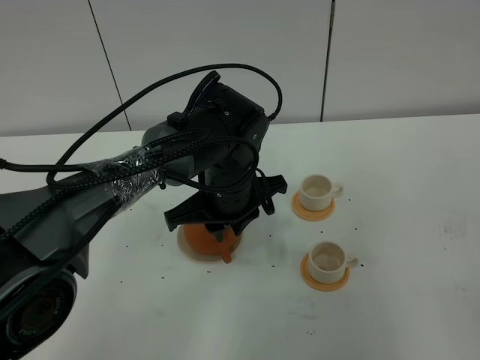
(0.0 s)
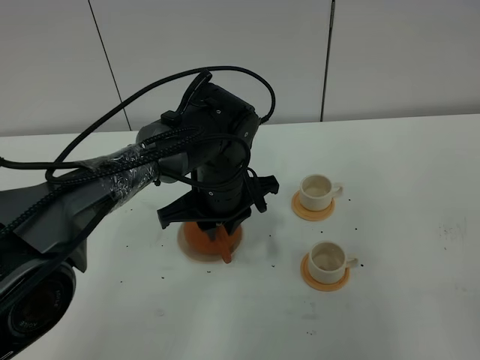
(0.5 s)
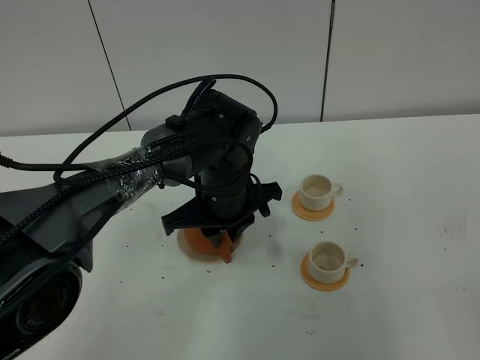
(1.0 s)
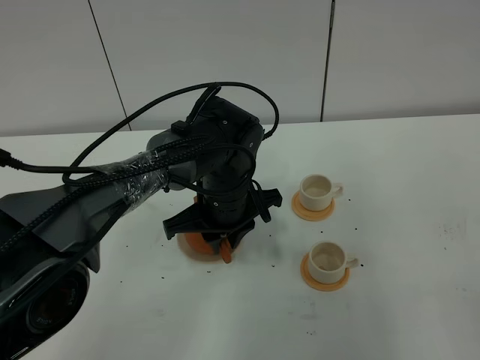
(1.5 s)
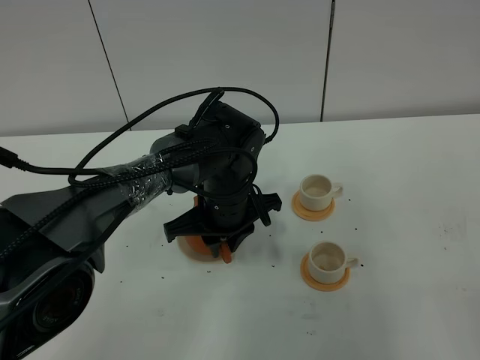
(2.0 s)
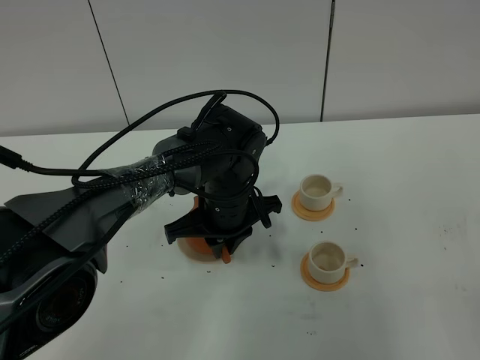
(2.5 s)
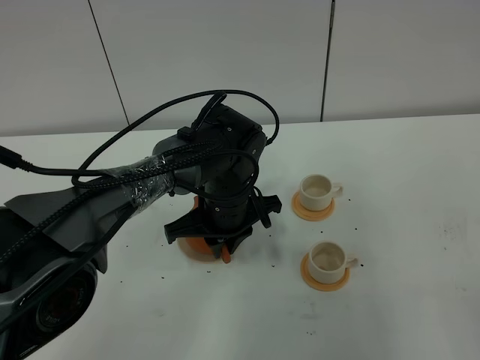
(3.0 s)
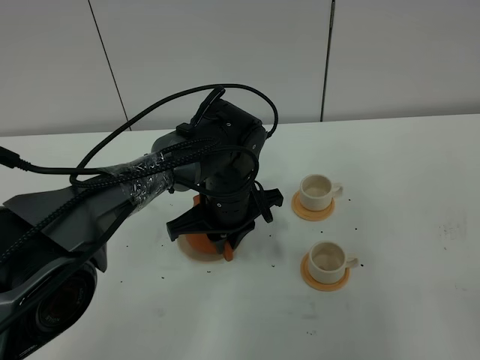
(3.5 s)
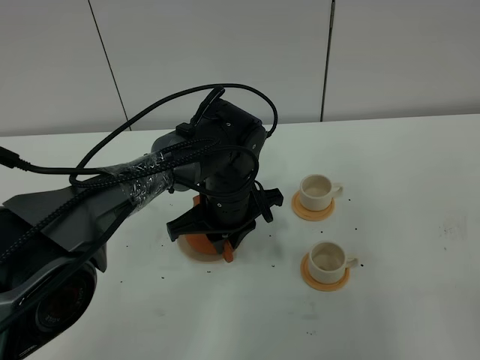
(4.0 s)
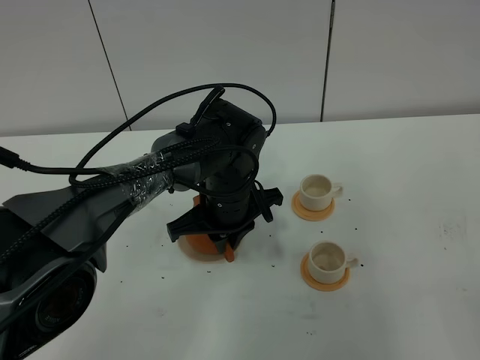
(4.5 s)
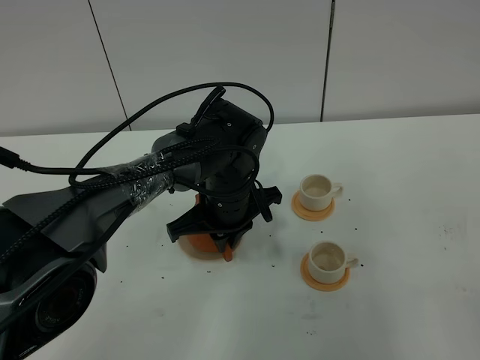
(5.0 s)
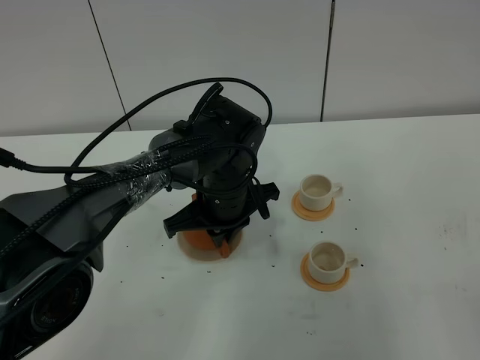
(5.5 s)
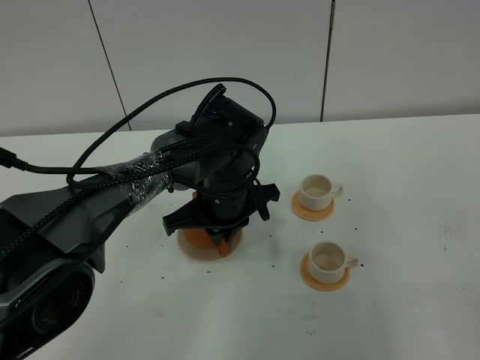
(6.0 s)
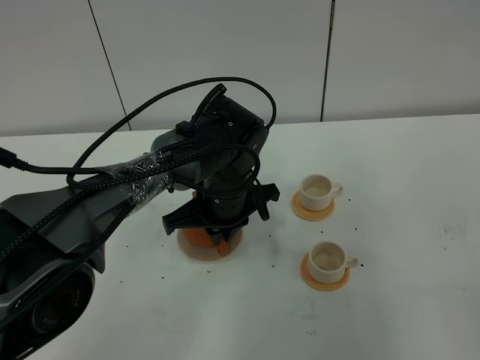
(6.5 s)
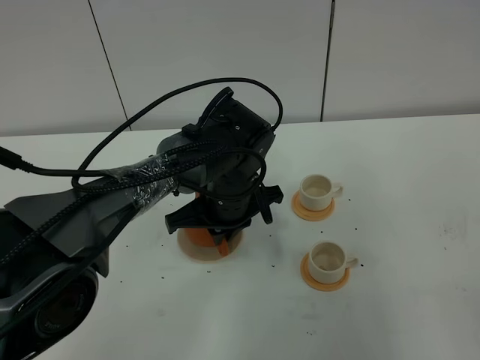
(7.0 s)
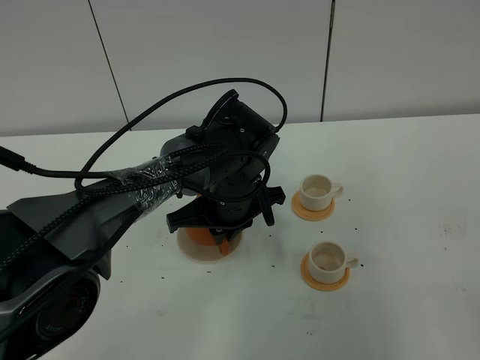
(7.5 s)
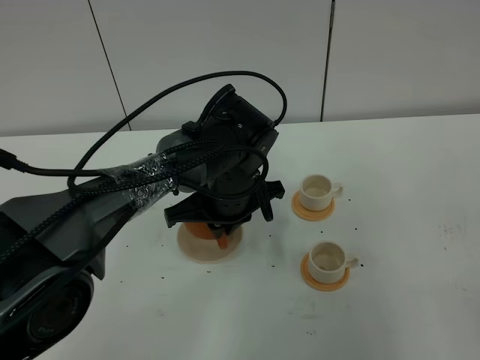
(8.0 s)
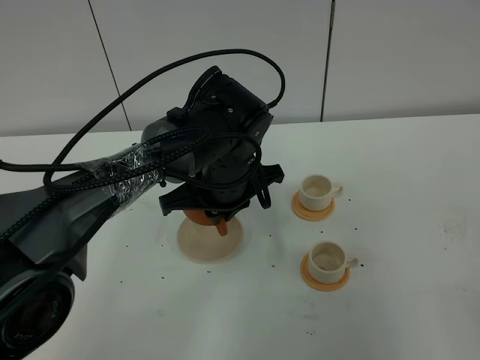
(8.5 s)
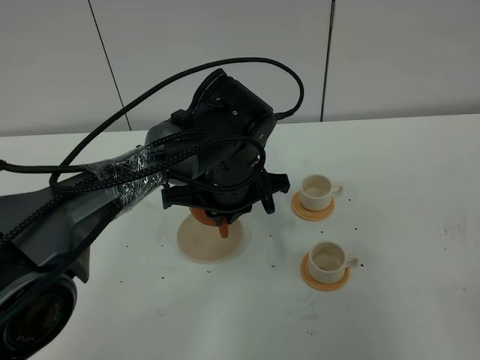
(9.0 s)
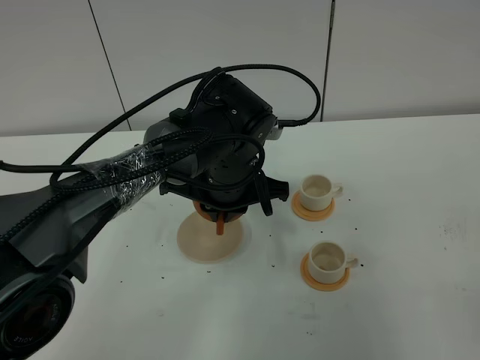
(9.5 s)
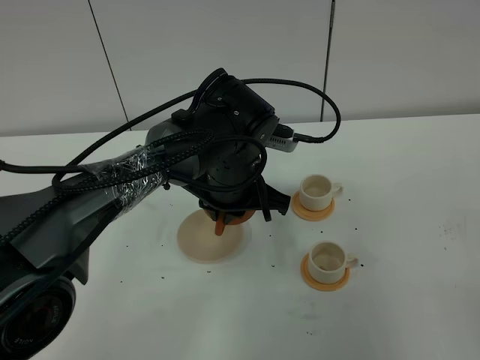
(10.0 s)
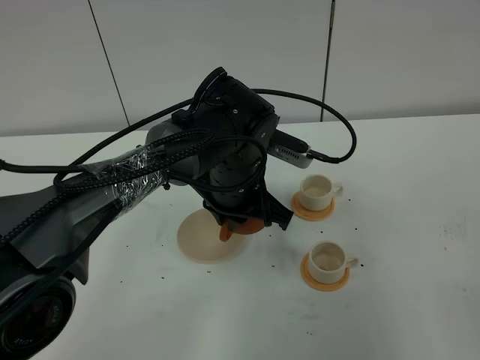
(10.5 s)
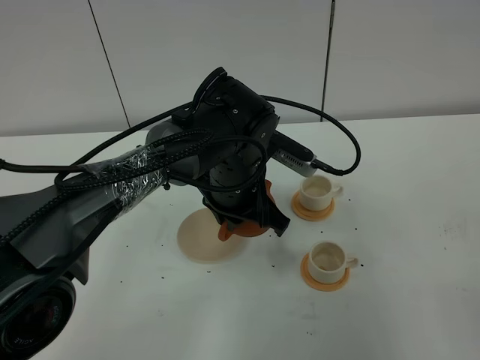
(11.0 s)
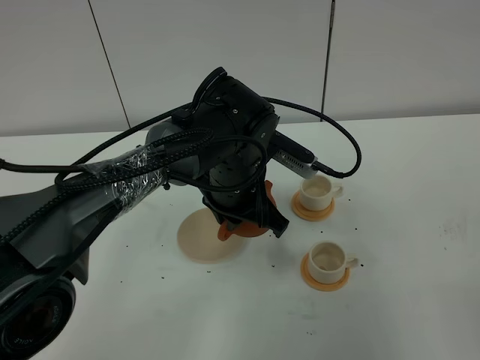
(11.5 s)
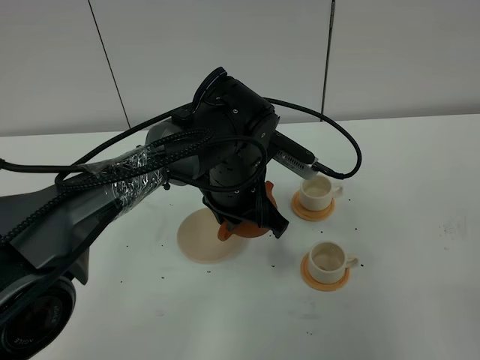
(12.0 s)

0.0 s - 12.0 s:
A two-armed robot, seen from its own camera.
Task of the whole recording: grasp the brown teapot and pour the tea into the two white teacups one by one, put the brown teapot back in its original place.
Step, 0.0 s - 4.5 s: Grasp the teapot with left gripper.
0.0 s - 2.0 s: The grippers make only small movements.
2.0 s - 4.0 s: Neither gripper changes place.
4.0 s - 6.0 s: The left gripper closes its fingers.
6.0 s - 8.0 s: There are only small adjustments of the grippers.

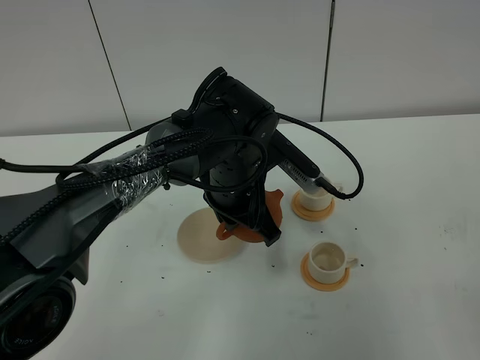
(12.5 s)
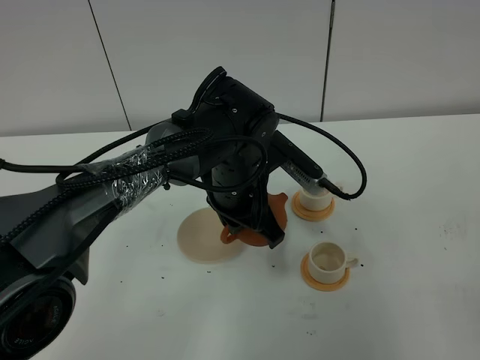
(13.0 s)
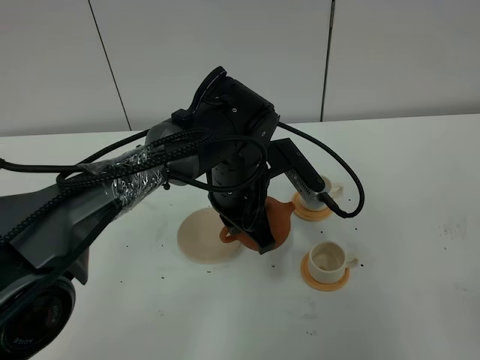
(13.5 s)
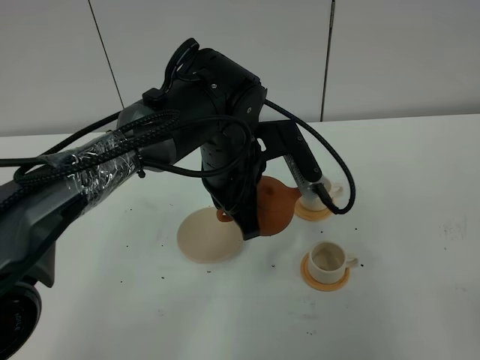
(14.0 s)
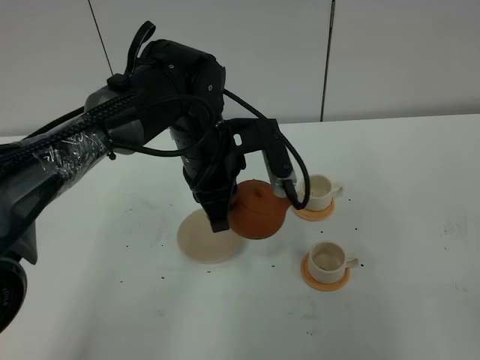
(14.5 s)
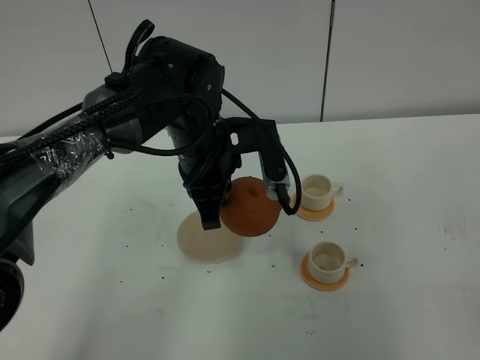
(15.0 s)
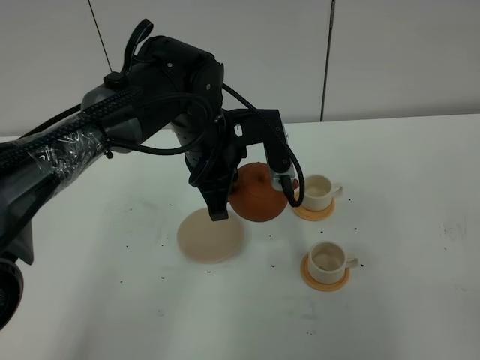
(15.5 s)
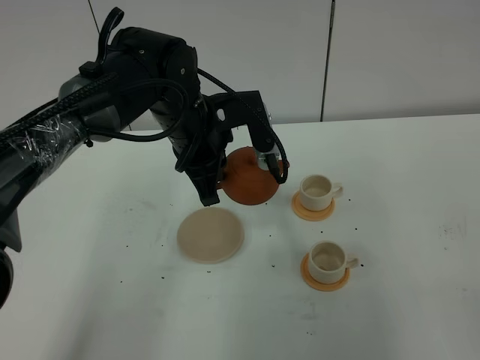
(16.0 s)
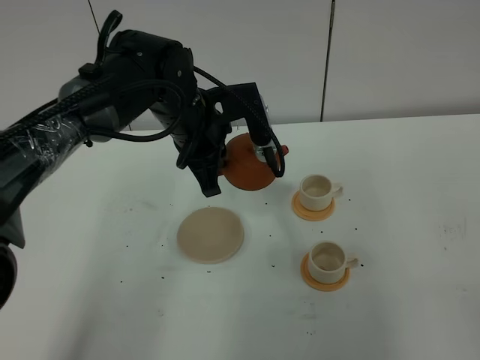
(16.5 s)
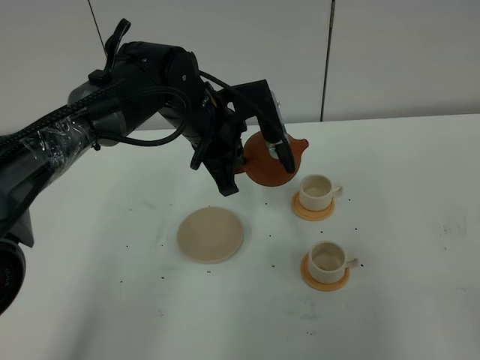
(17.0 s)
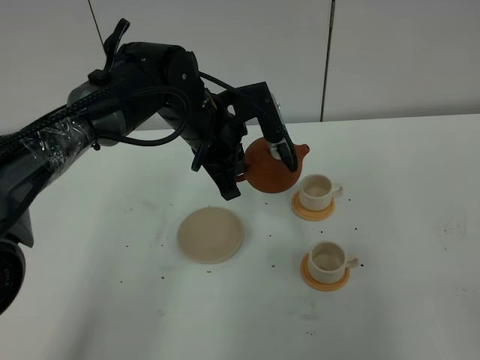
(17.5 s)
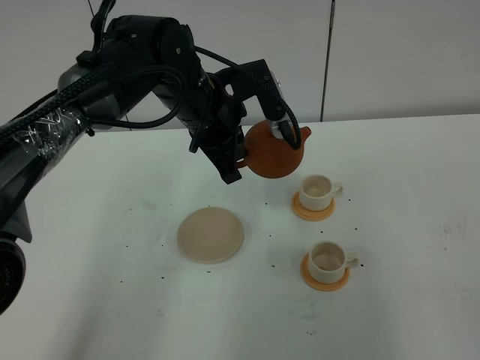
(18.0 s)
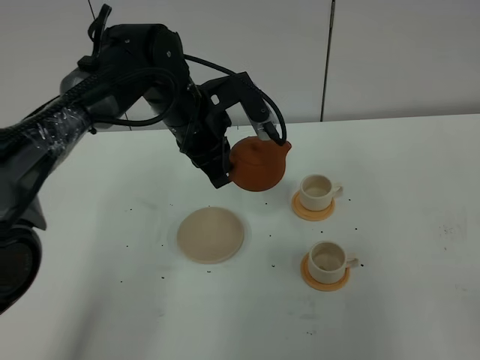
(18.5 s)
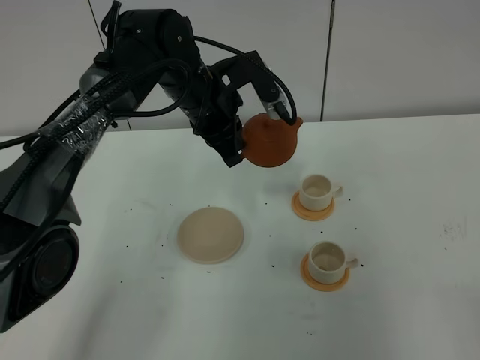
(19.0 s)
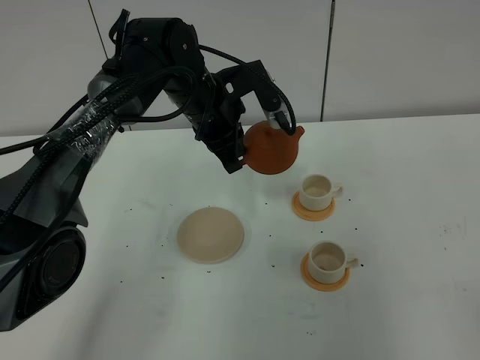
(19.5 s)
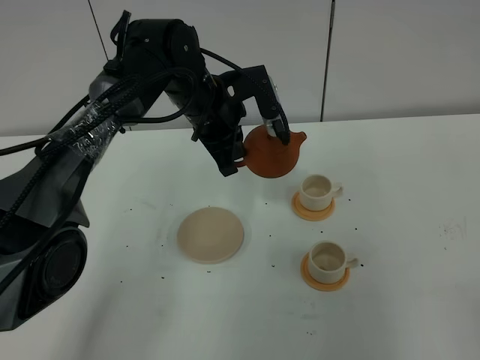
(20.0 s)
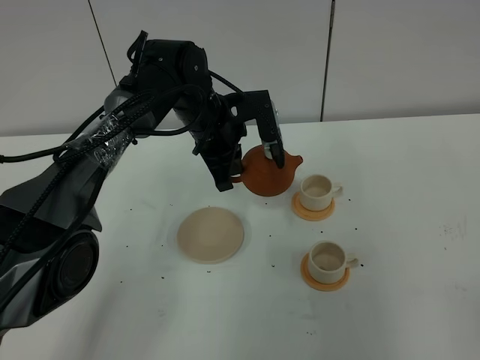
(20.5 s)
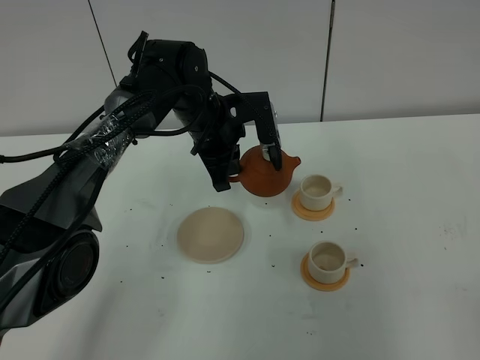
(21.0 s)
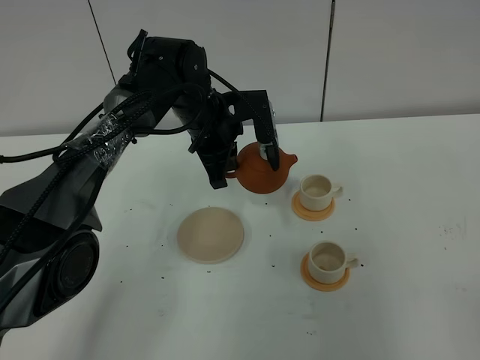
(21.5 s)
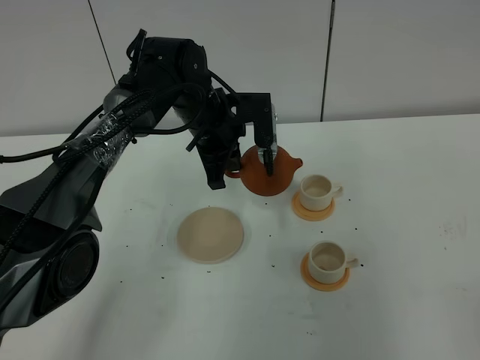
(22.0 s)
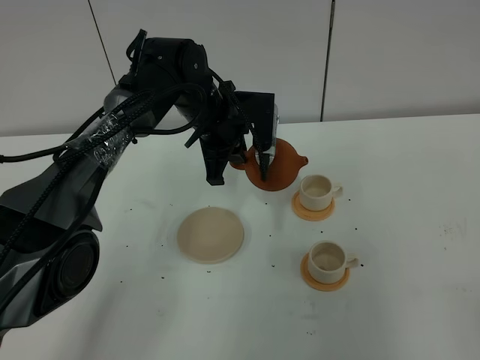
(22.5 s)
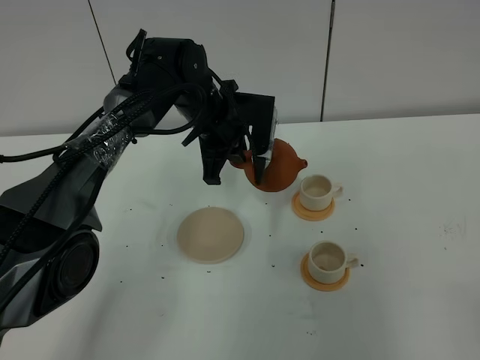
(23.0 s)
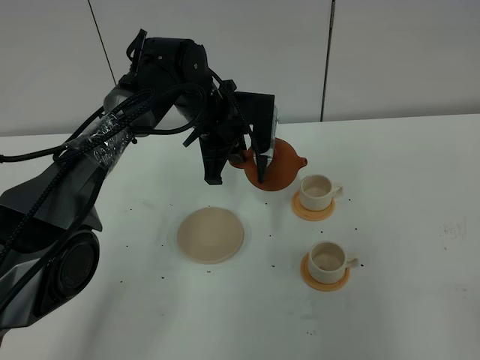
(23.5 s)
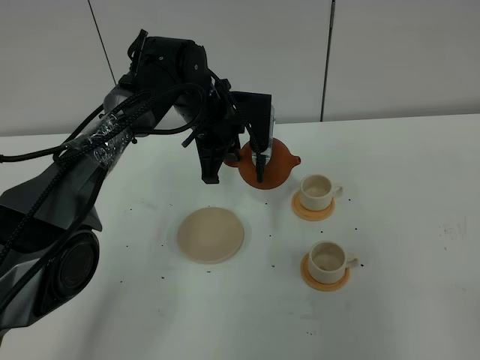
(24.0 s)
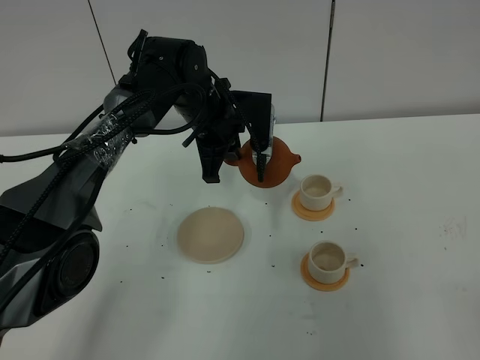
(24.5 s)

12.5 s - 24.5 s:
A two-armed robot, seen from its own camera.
Task of the whole recording: grasp the brown teapot and pour the tea into the two white teacups one by one, put the brown teapot back in its original place.
12.5 s - 14.5 s: The left gripper moves approximately 5 cm.
14.5 s - 16.5 s: The grippers make only small movements.
16.5 s - 18.5 s: The grippers stay close to where they were, moving slightly.
18.5 s - 20.5 s: The left gripper shifts by some 5 cm.
20.5 s - 22.5 s: The grippers move only a little.
22.5 s - 24.5 s: Both grippers stay put.

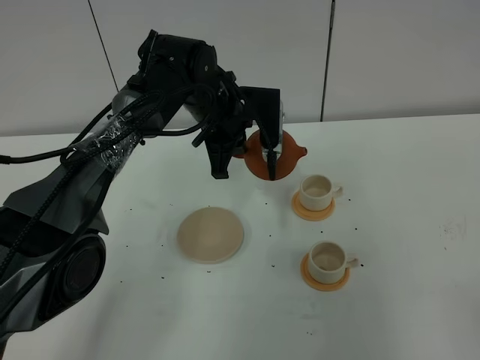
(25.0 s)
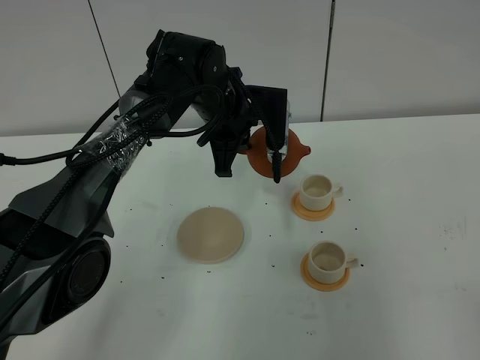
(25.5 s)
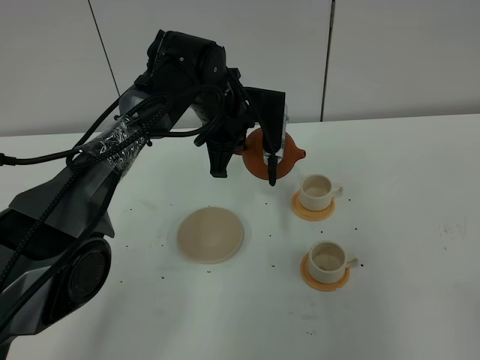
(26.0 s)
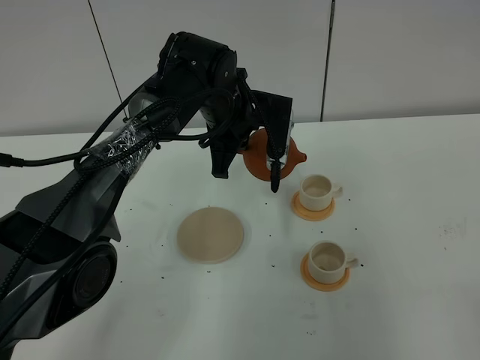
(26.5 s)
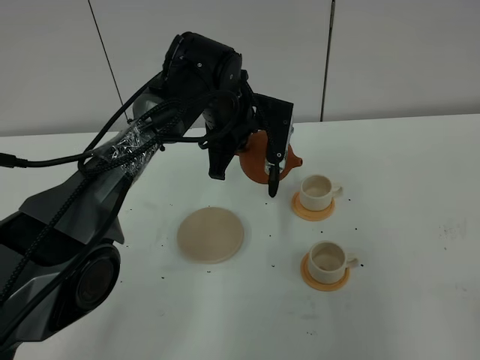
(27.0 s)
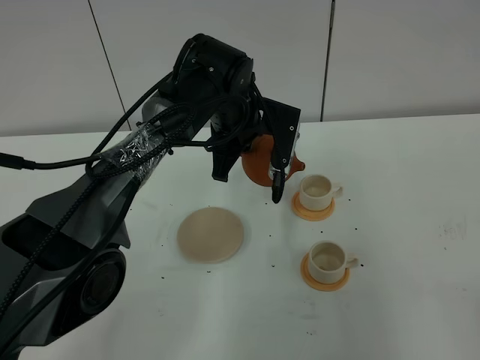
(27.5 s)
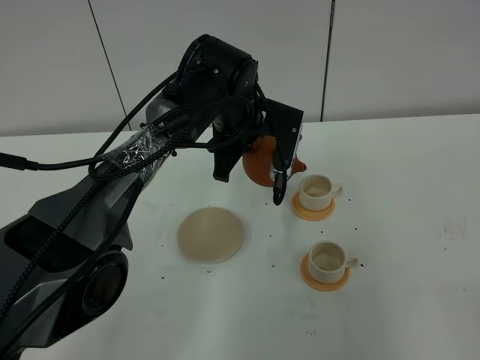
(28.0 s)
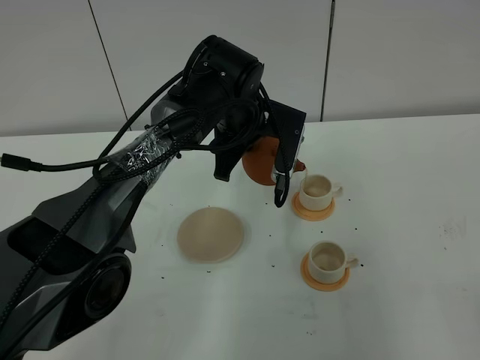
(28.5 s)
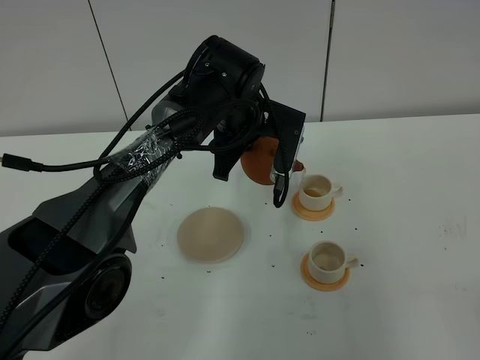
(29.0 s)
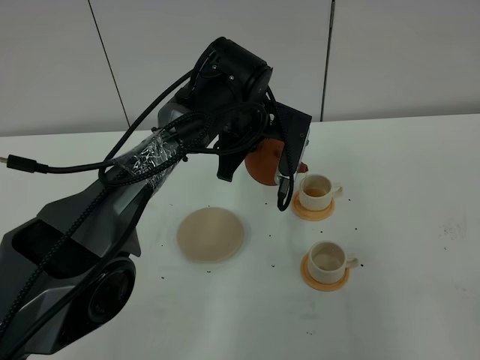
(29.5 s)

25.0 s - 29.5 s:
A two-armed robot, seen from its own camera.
Task of the whole recording: grasp the brown teapot and pour the tea into the two white teacups one by one, put the brown teapot back in its original place.
25.0 s - 27.0 s: The grippers make only small movements.
27.0 s - 29.5 s: The grippers move only a little.
